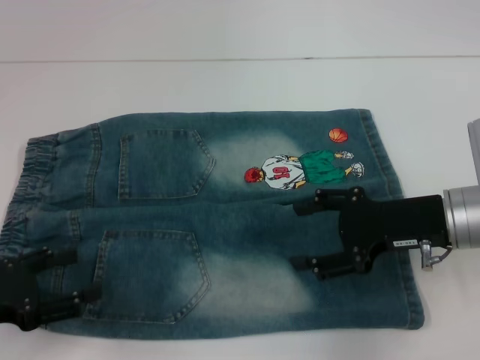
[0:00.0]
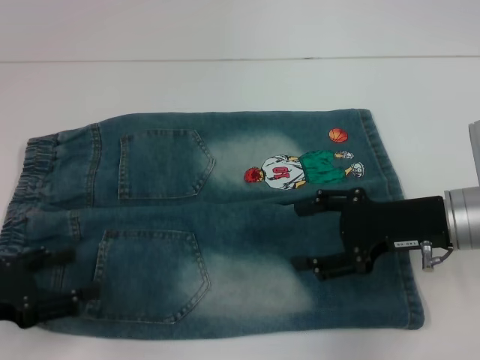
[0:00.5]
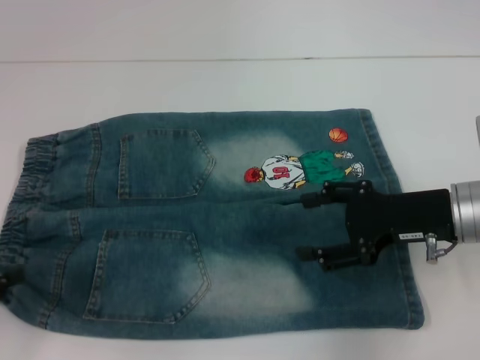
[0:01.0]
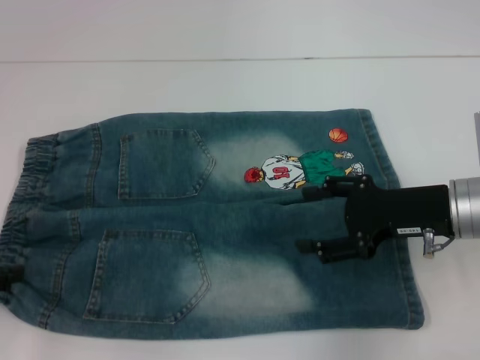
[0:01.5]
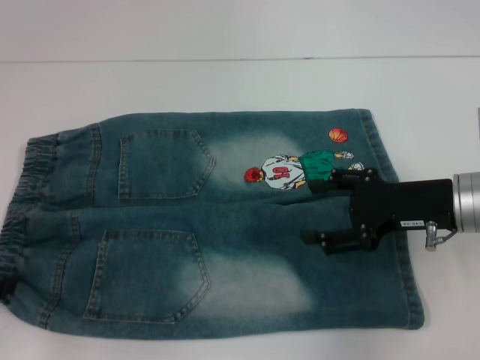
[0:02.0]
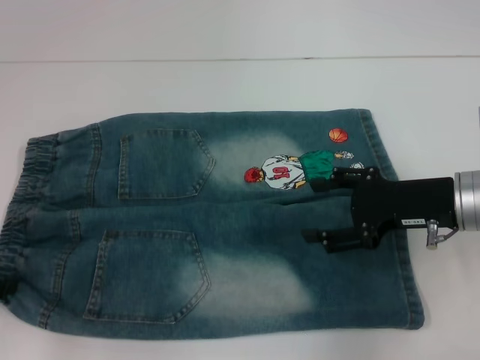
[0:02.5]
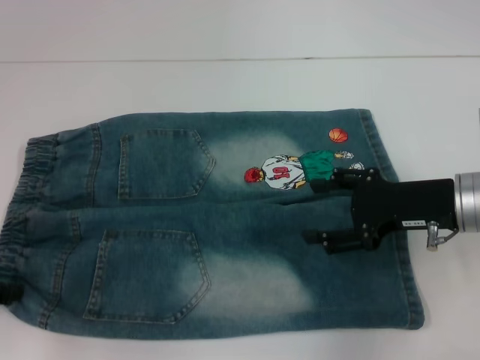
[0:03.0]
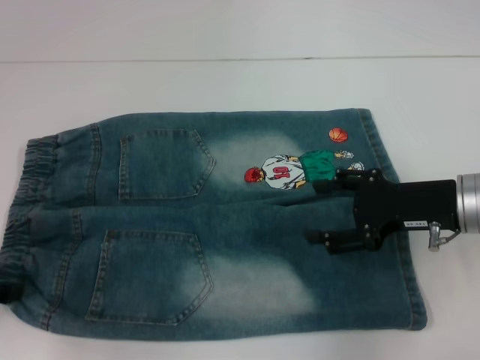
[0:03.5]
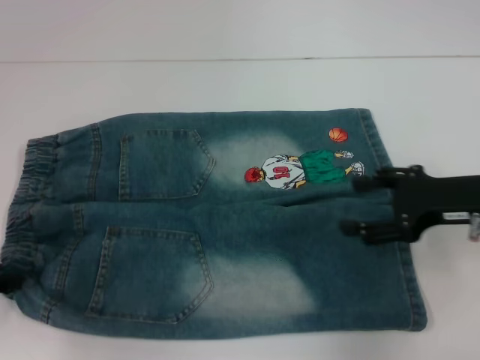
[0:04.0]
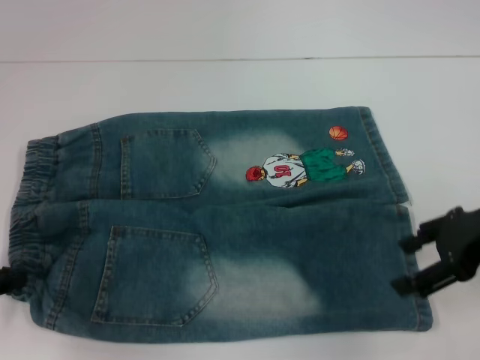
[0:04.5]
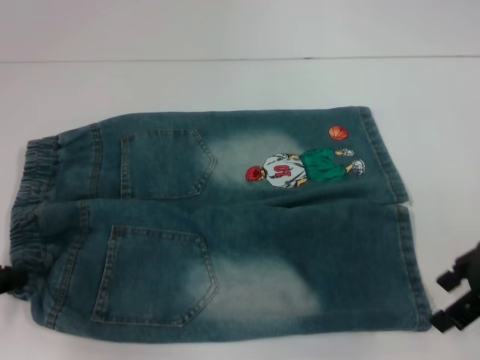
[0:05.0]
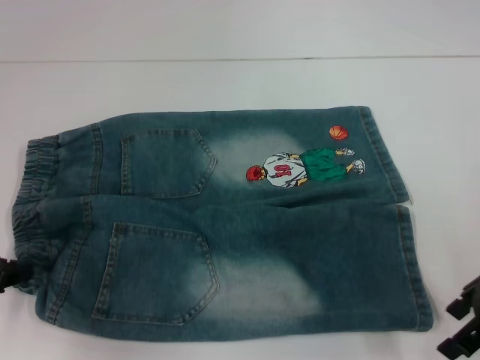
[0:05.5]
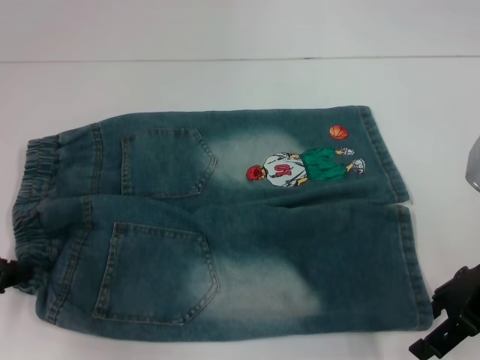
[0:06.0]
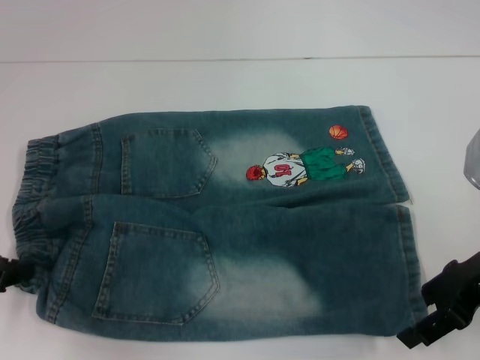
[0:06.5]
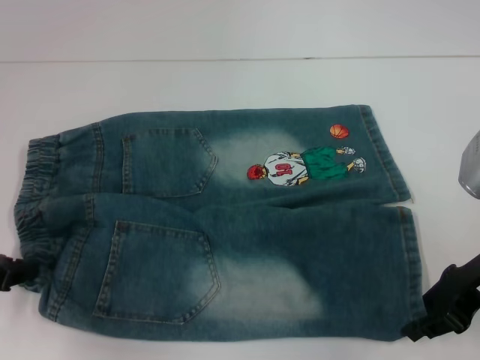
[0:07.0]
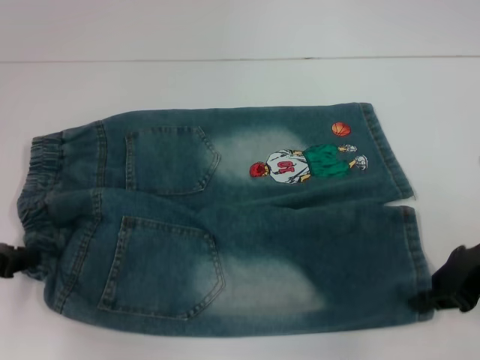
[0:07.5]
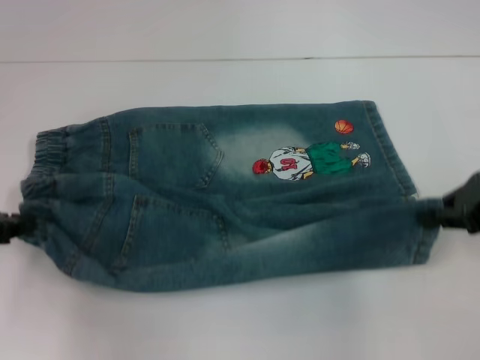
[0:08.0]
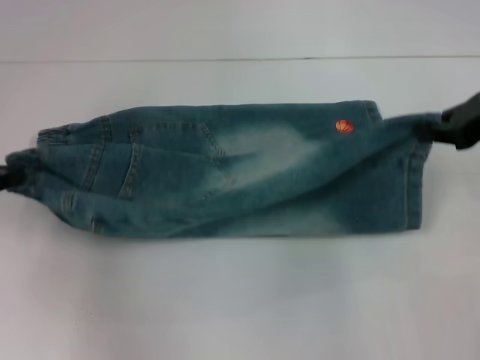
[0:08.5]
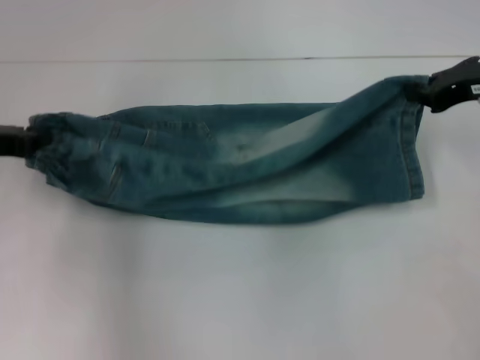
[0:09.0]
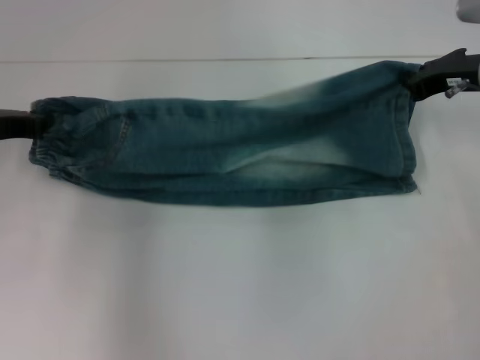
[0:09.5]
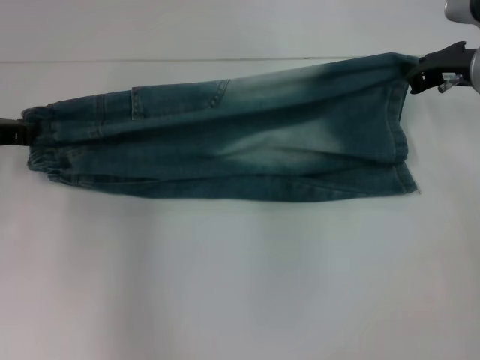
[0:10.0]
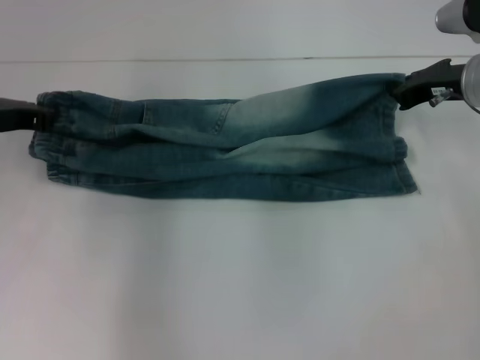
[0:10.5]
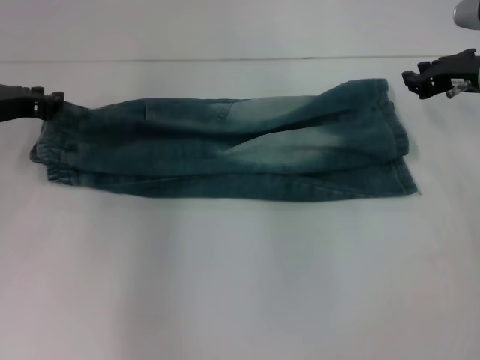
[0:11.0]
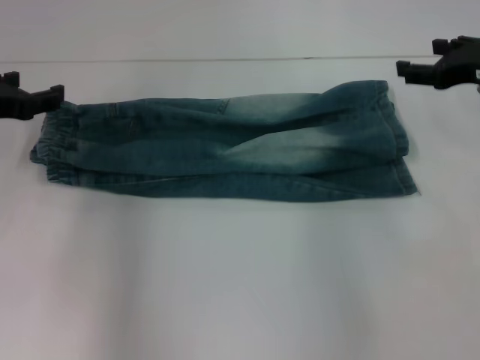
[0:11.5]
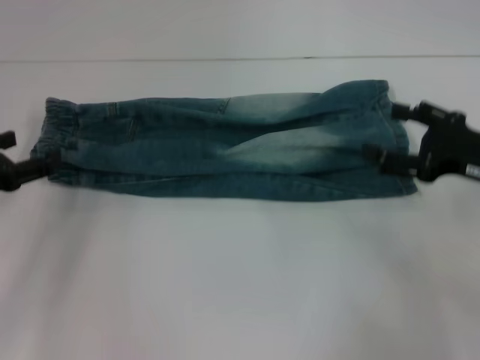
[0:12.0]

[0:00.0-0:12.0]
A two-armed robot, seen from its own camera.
Step, 0:00.0 to 0:04.0: Hold the lower left waistband with your left hand.
Step, 0:04.5 to 0:07.0: Grab the lower right pant leg with your right hand.
Step, 0:07.5 to 0:11.0: Fold upward with your right hand.
0:00.0 to 0:02.0: The left gripper moves upward, approximately 5 cm.
0:02.0 to 0:04.0: The left gripper closes up.
0:04.0 to 0:06.0: The left gripper closes its fingers.
0:06.0 to 0:08.0: The right gripper ends up some 5 cm from where it was, and closes its fingers.
0:08.0 to 0:10.0: The two grippers go approximately 10 cm forward.
0:10.0 to 0:12.0: The right gripper travels backward by some 10 cm, and opens up. The left gripper is displaced backward by approximately 10 cm, and opens.

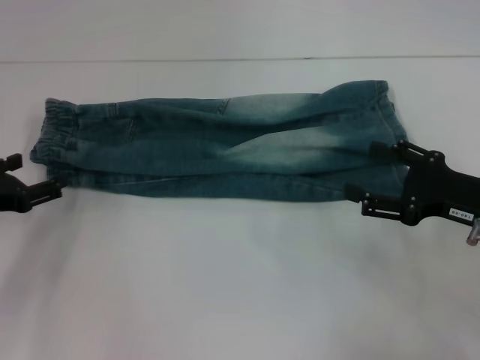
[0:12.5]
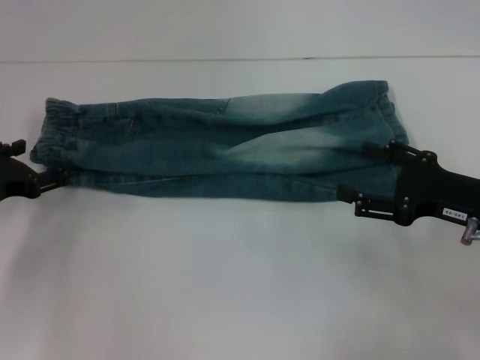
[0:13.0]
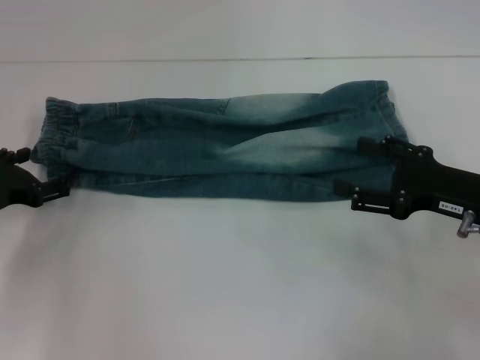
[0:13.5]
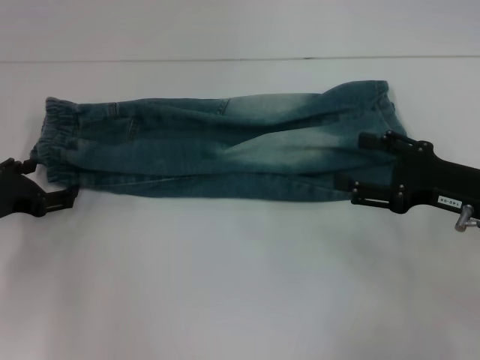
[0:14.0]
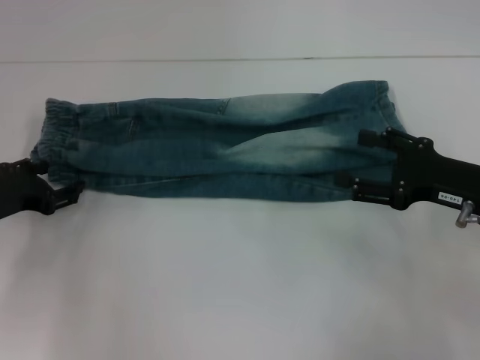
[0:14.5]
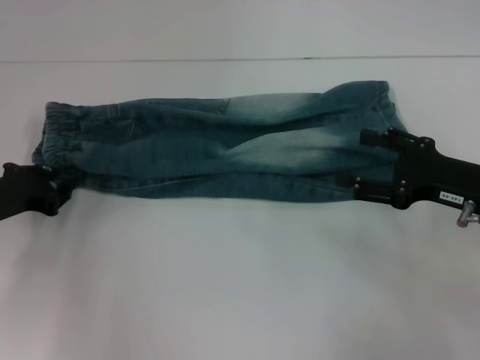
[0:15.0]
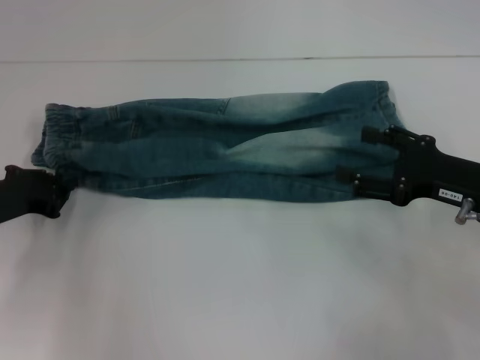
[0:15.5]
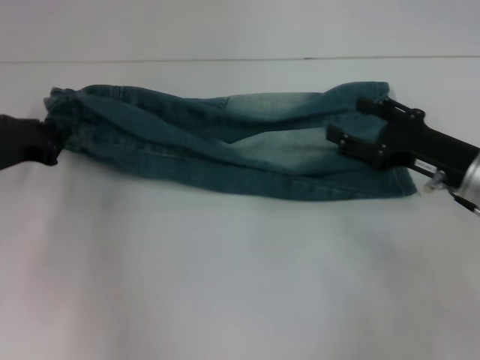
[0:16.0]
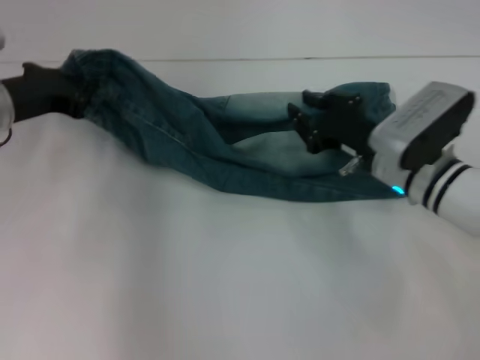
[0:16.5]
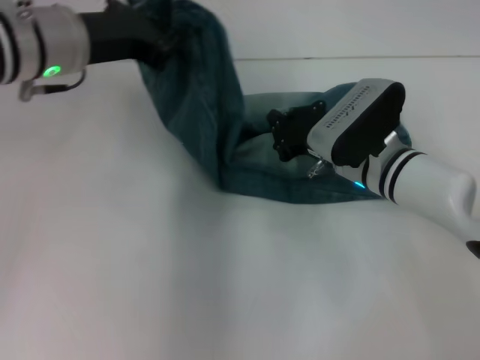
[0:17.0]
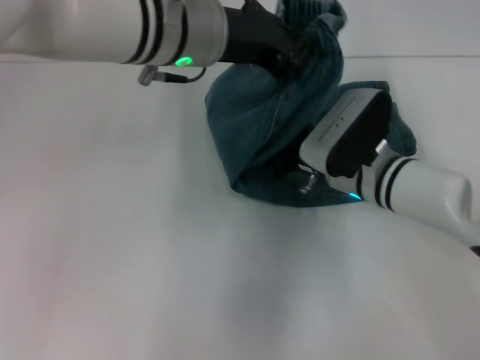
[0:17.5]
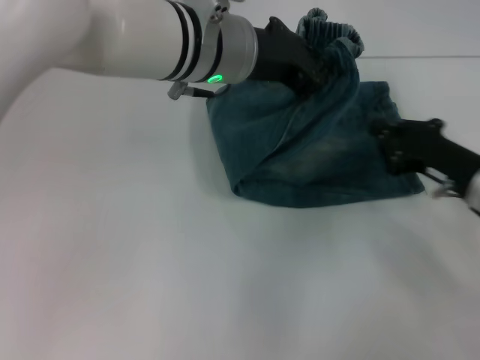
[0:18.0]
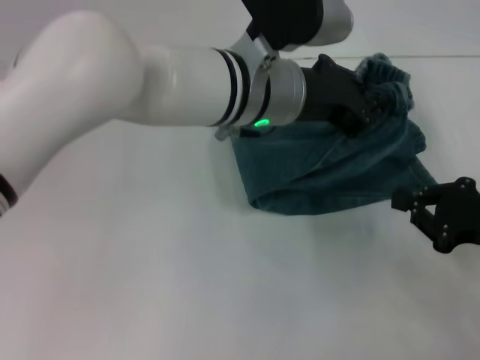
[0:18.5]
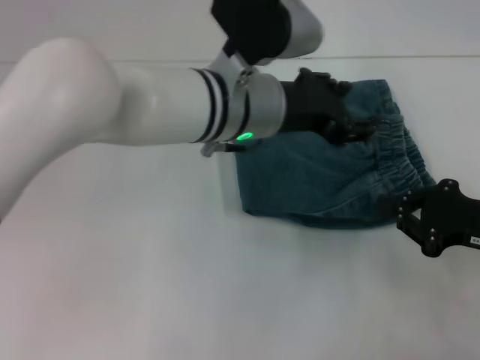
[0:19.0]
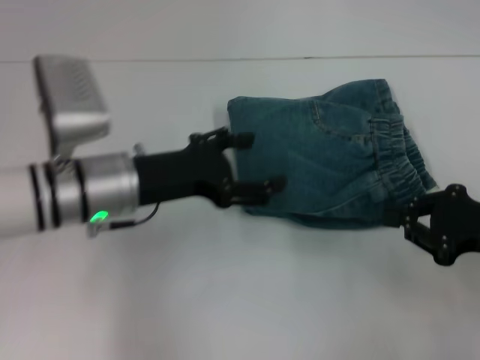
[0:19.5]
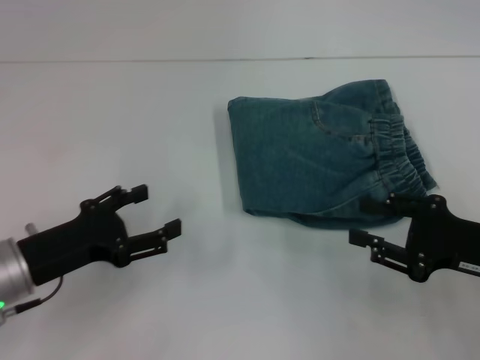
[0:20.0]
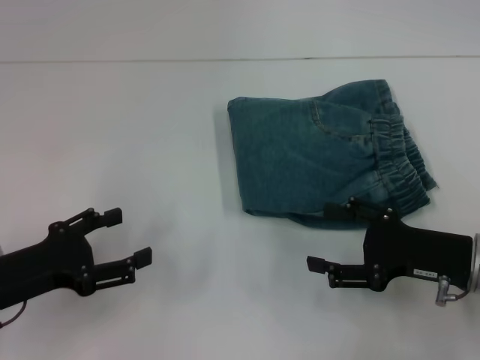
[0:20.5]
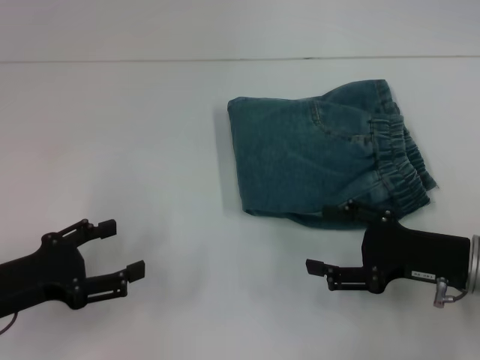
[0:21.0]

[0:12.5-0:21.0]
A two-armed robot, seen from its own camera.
Step, 0:12.5 to 0:15.5: Hold the waistband with your left hand.
Step, 0:16.0 to 0:17.0: Press the middle of the pants with your right hand.
Step, 0:18.0 to 0:18.5: Fold to the right with your left hand.
0:12.5 to 0:14.5: The grippers move only a little.
0:14.5 to 0:16.5: The right gripper travels to the left and forward by some 10 cm, and closes its fingers. Meanwhile the left gripper shifts about 10 cm upward and forward, and closes.
0:16.5 to 0:19.0: The left gripper shifts approximately 25 cm to the right, and opens; the right gripper goes roughly 15 cm to the right and backward, and closes its fingers.
0:19.0 to 0:21.0: The right gripper moves to the left, approximately 5 cm, and opens, while the left gripper travels to the left, backward and downward by some 30 cm, and opens.
